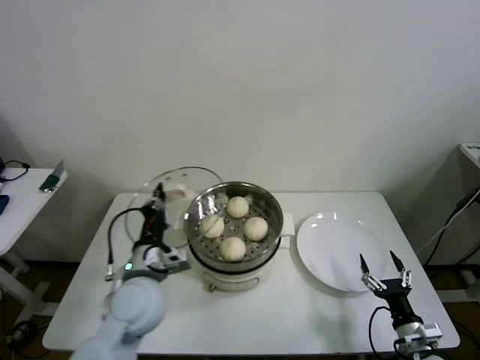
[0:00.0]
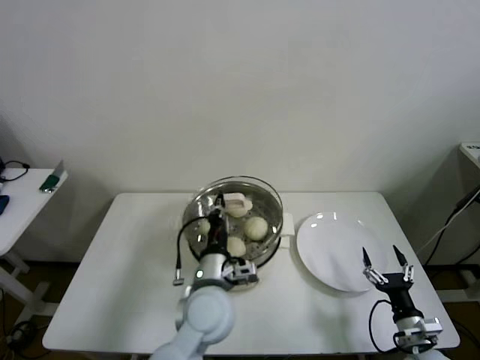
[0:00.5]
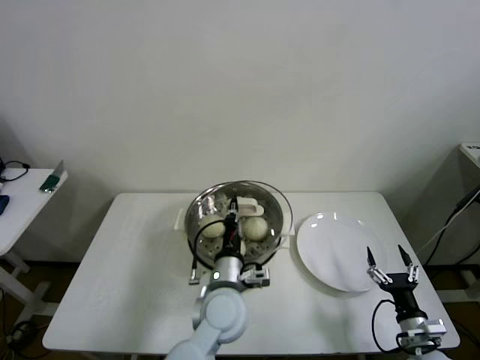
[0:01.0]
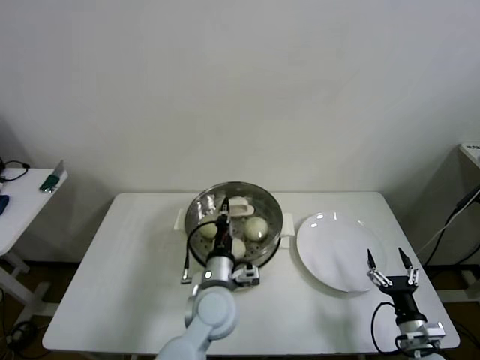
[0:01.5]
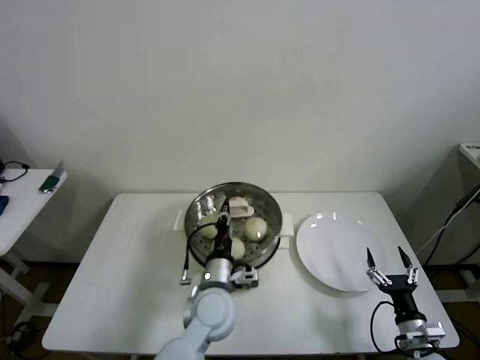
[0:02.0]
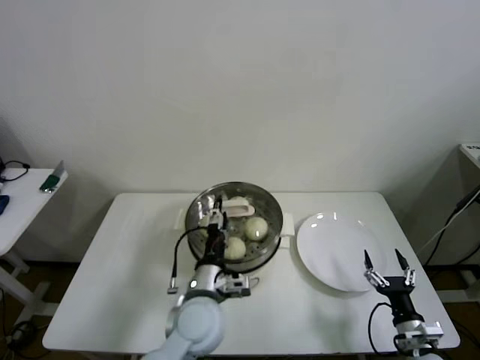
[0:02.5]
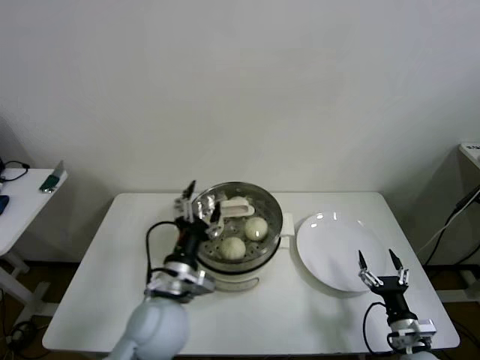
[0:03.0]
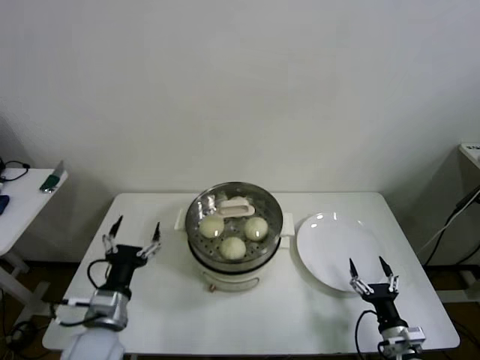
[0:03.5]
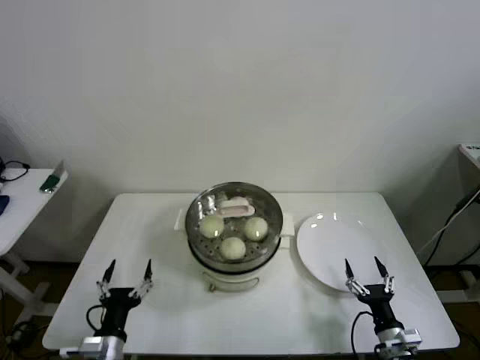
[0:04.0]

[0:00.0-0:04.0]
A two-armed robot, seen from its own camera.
Step, 0:00.0 to 0:02.0: Place the pot lid on the steamer with left gripper.
0:00.0 to 0:02.0: The left gripper moves to the right and downward, some 15 cm.
0:02.0 to 0:04.0: The left gripper travels to the left and backward by about 25 cm, and opens up.

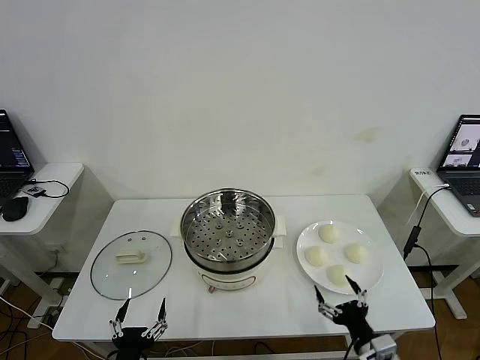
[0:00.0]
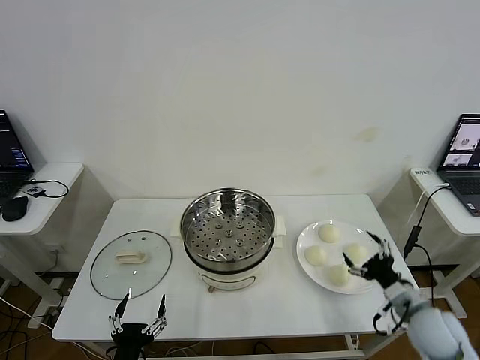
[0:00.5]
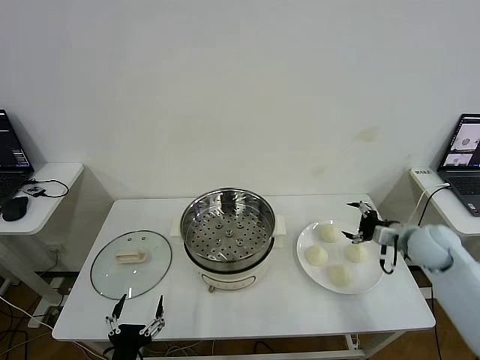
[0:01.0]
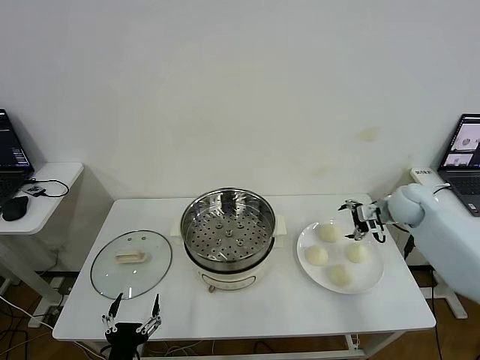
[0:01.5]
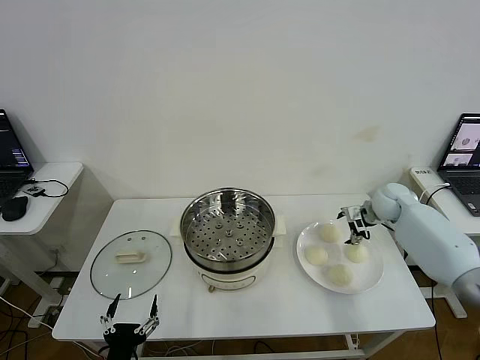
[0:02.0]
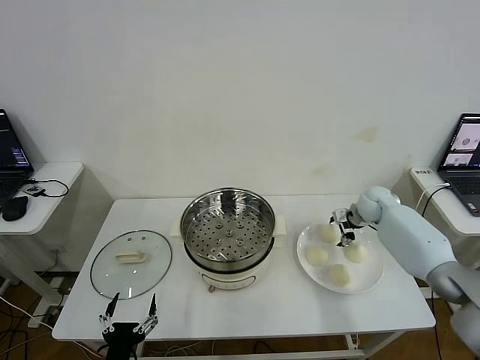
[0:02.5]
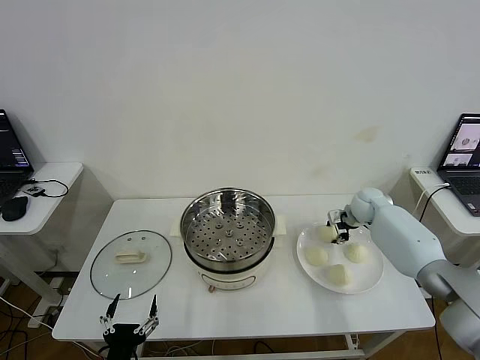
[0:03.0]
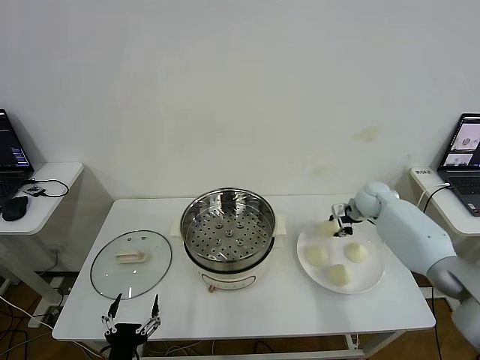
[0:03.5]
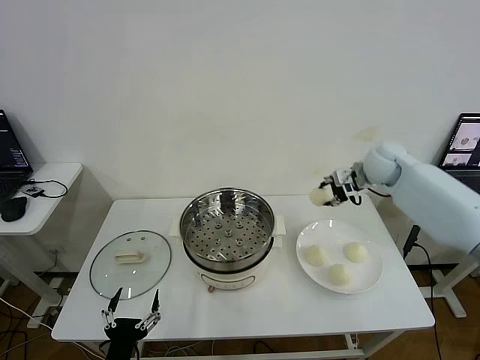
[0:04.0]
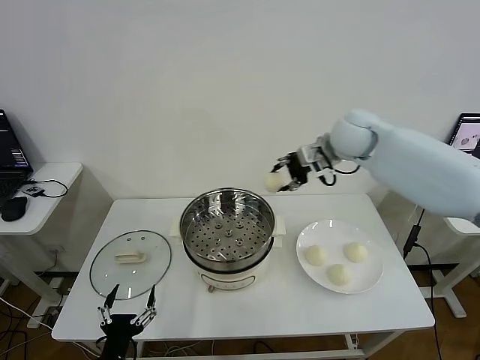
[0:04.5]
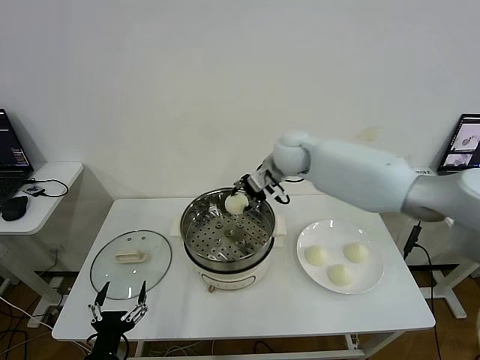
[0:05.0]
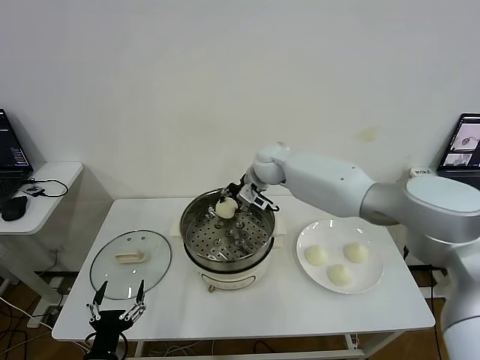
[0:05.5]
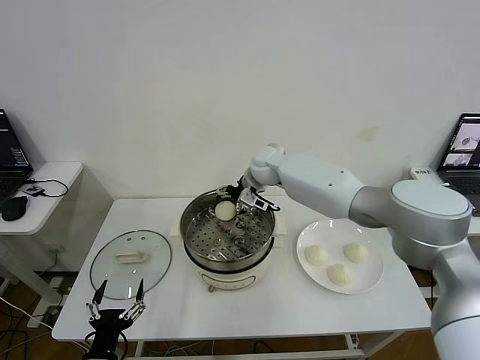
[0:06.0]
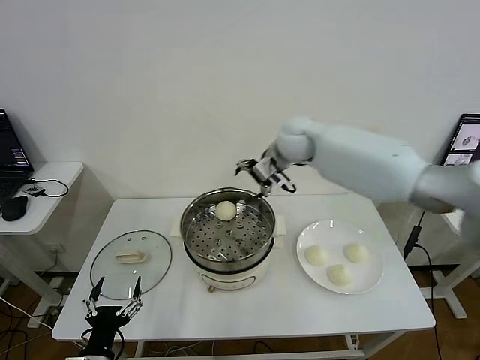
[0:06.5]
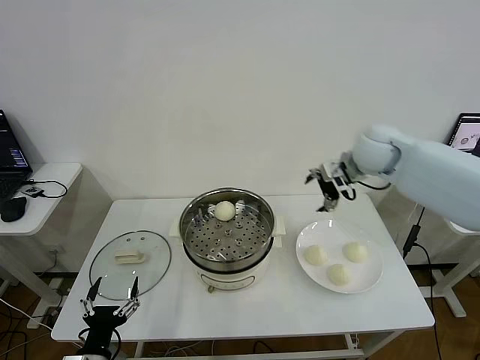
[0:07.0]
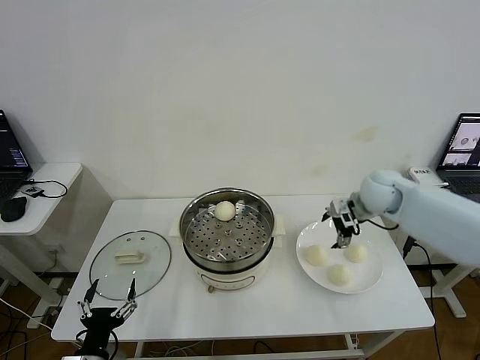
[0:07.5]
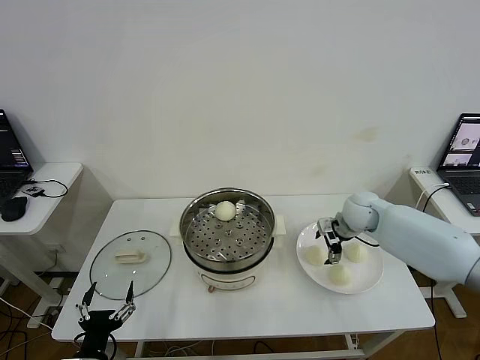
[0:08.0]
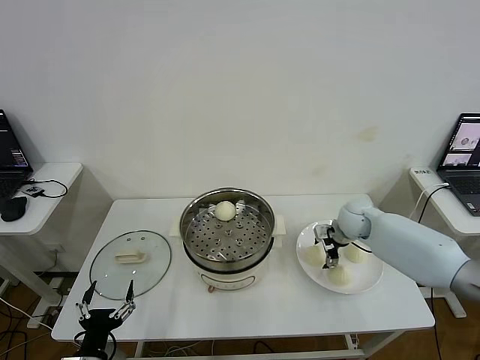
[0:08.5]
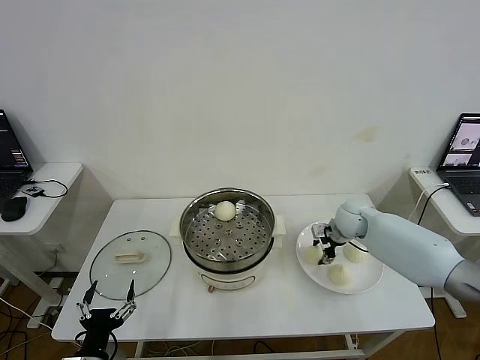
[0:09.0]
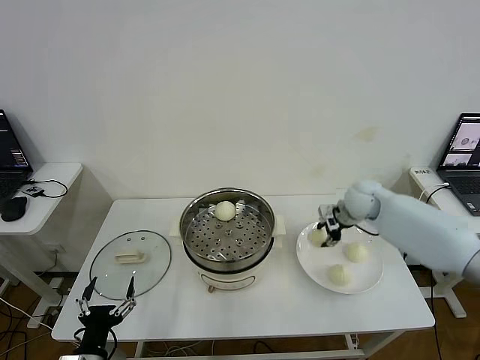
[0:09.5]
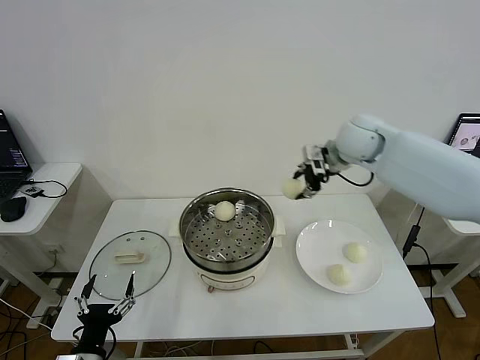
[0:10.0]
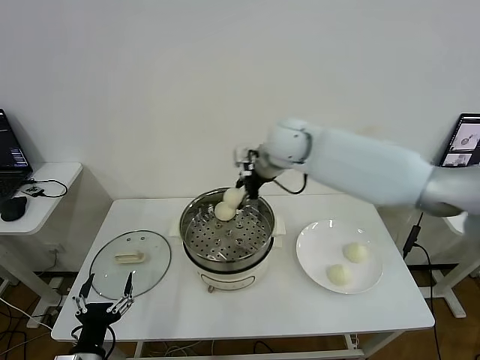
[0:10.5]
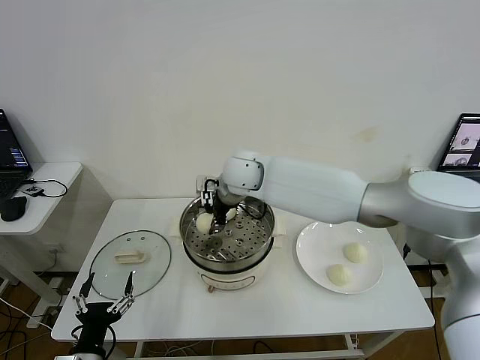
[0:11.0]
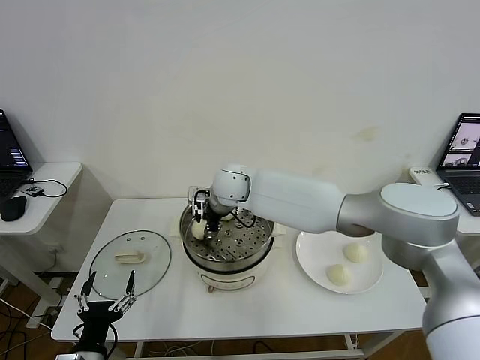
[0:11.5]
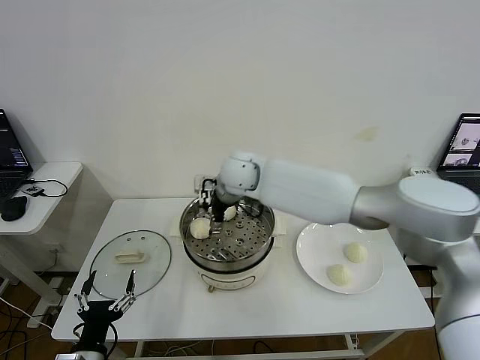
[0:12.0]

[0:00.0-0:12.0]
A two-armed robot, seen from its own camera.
Step, 0:00.0 to 0:03.0: Grasp the baozi in the plate with right gripper.
Step, 0:03.5 to 0:05.5: Place the baozi on the steamer with right gripper.
Step, 0:06.0 to 0:09.0: Grasp the baozi in the plate with right gripper.
Step, 0:09.5 to 0:11.5: Place the baozi on the steamer with right gripper.
0:02.0 to 0:04.0: The right gripper travels upward and to the left by roughly 15 cm, and closes up.
0:04.0 to 0:06.0: The right gripper shifts roughly 25 cm to the left, and opens up.
0:06.0 to 0:08.0: The right gripper goes approximately 25 cm to the right and downward.
0:08.0 to 0:10.0: The right gripper moves upward, approximately 20 cm, and closes its fingers.
0:10.0 to 0:12.0: The right gripper heads to the left, covering some 25 cm, and opens its fingers.

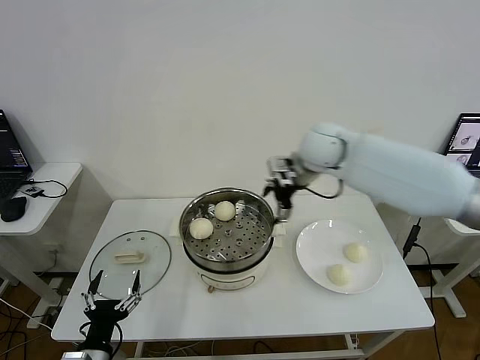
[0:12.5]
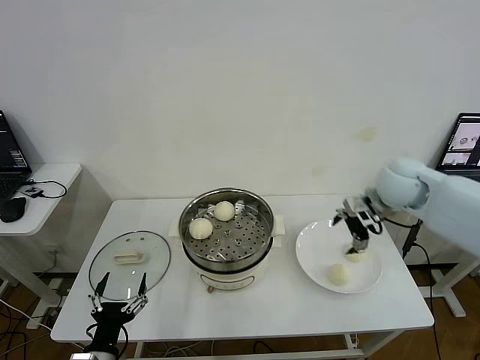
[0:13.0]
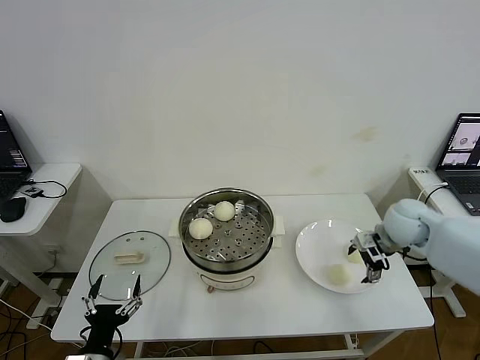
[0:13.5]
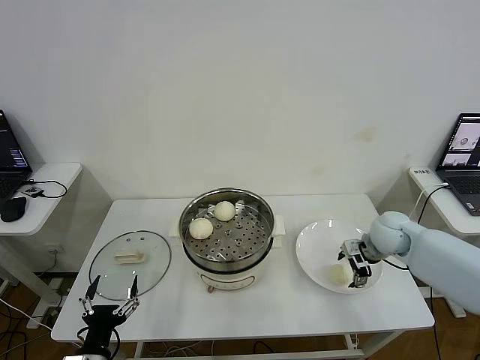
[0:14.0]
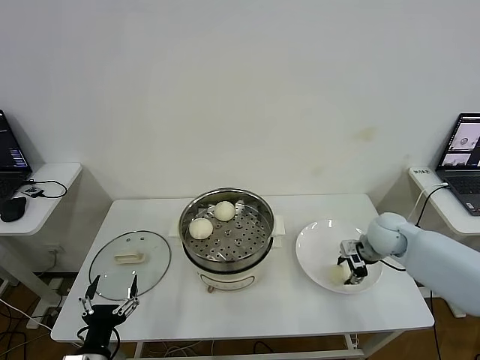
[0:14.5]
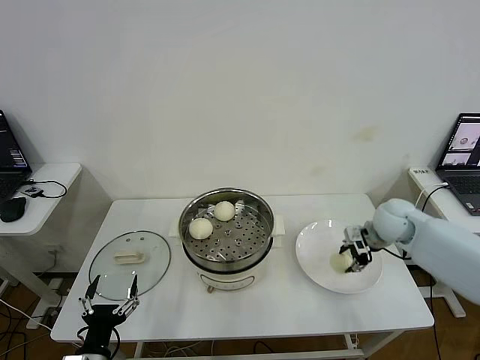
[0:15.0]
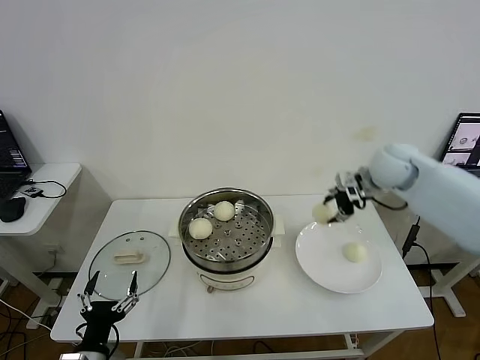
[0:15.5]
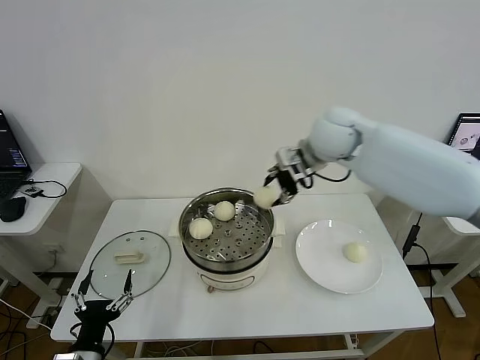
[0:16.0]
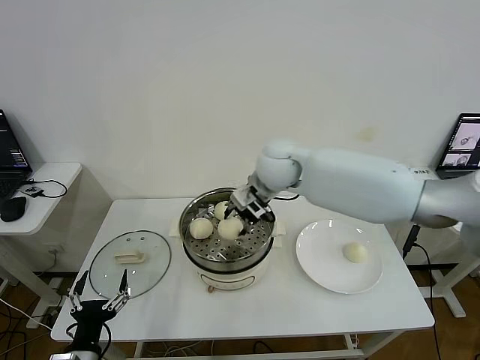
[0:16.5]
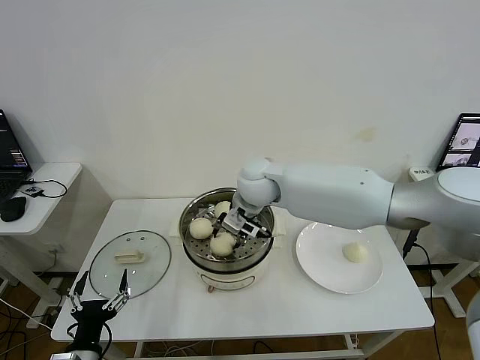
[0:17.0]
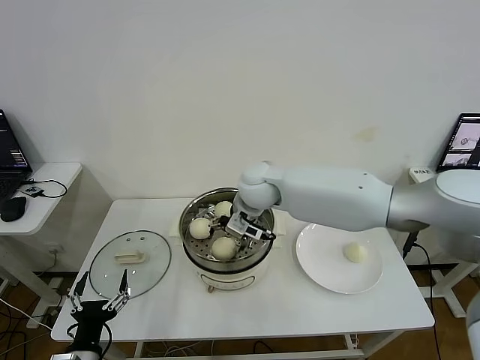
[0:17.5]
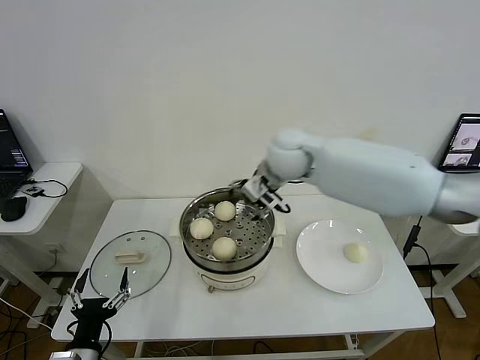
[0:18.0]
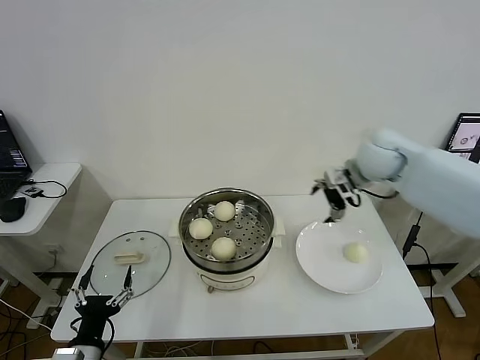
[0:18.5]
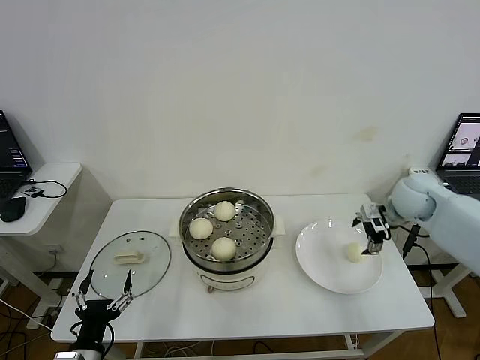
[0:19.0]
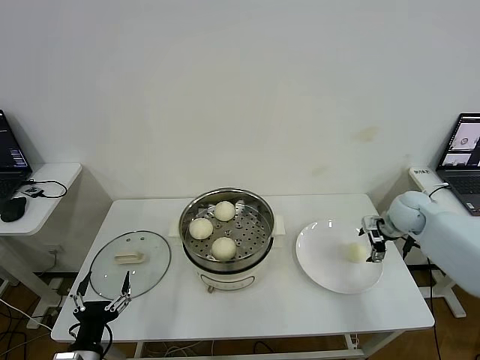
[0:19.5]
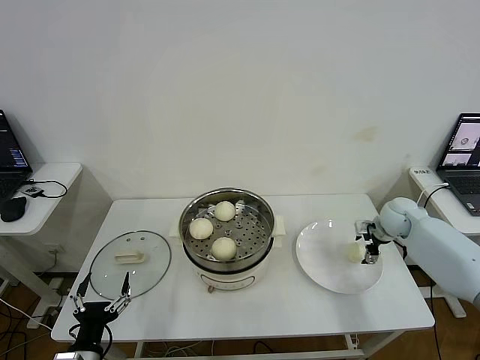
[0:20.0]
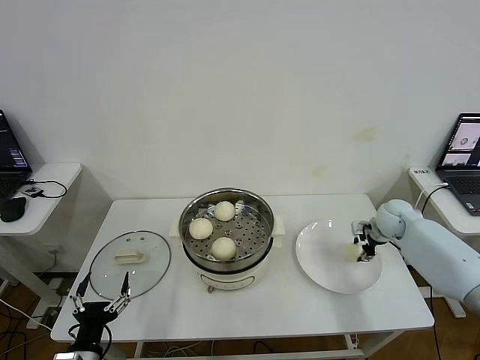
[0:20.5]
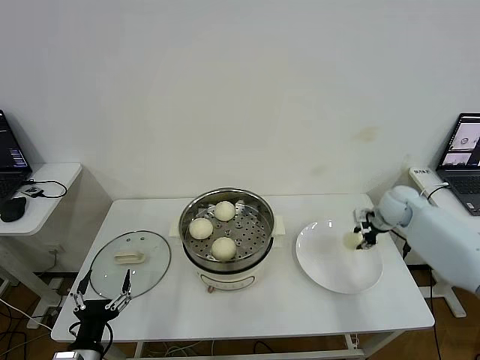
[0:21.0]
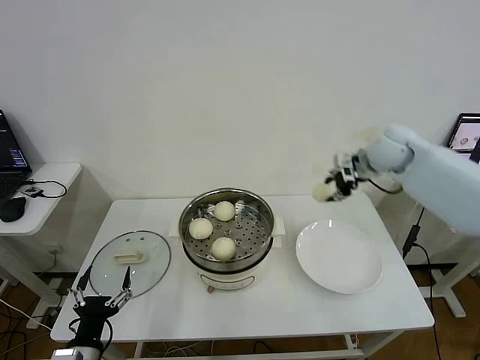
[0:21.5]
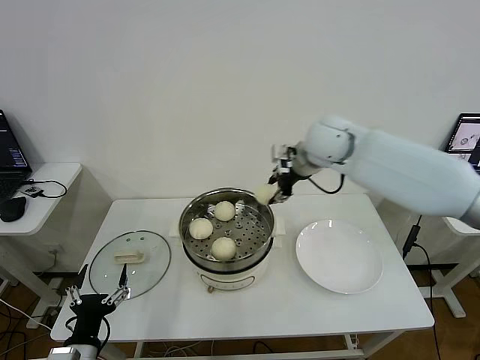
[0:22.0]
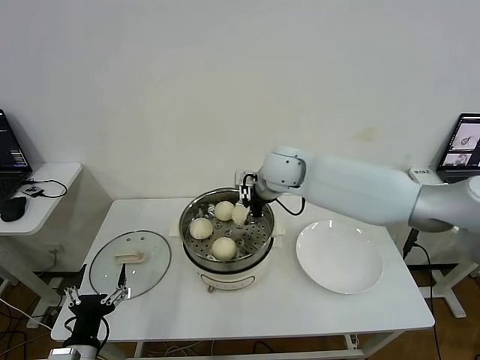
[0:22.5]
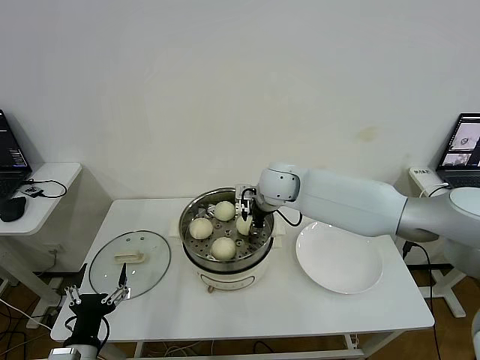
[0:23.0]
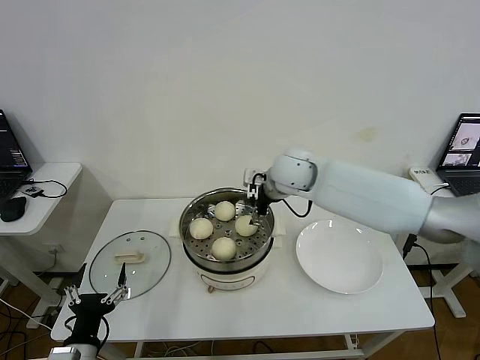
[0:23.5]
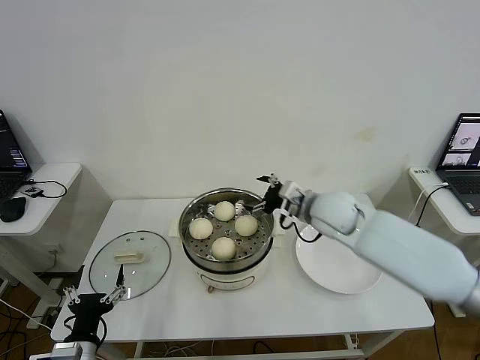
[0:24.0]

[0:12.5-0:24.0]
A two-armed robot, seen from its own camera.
Step, 0:12.5 to 0:14.5: Grasp the baozi in the plate with right gripper.
Step, 0:15.0 to 0:17.0: Place the baozi on the steamer with right gripper.
Step, 0:17.5 to 0:20.0: Grasp the baozi in the plate with right gripper.
Step, 0:20.5 to 0:22.5: Place the baozi on the steamer with right gripper.
0:12.5 to 0:14.5: The right gripper goes roughly 25 cm downward and to the right, and closes its fingers.
0:14.5 to 0:16.5: The right gripper travels to the left and upward by roughly 30 cm.
0:16.5 to 0:18.5: The right gripper is displaced to the right by some 20 cm, and opens.
0:18.5 to 0:20.0: The right gripper travels downward and to the right by about 25 cm.
0:20.0 to 0:22.0: The right gripper travels to the left and upward by about 30 cm, and closes.
0:22.0 to 0:24.0: The right gripper moves downward and backward, some 15 cm, and opens its fingers.
